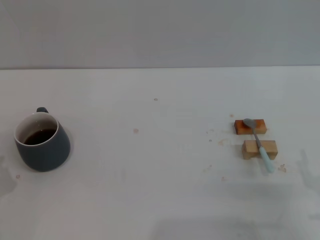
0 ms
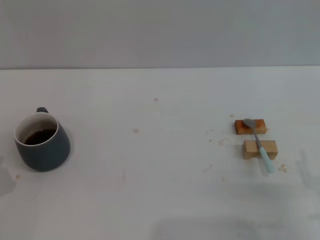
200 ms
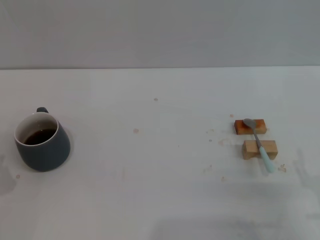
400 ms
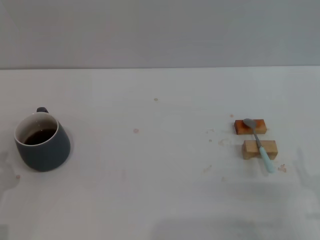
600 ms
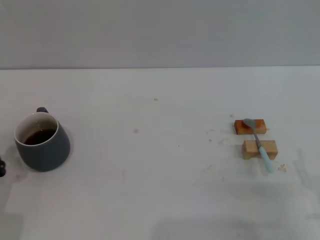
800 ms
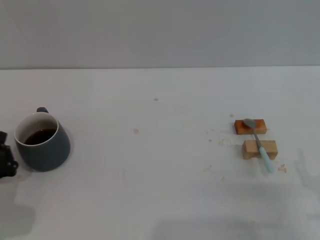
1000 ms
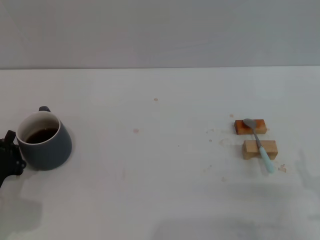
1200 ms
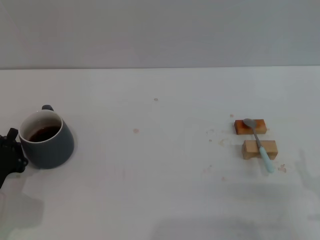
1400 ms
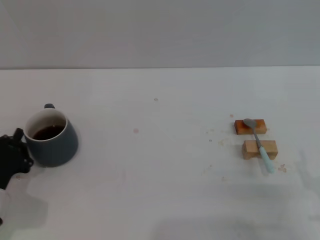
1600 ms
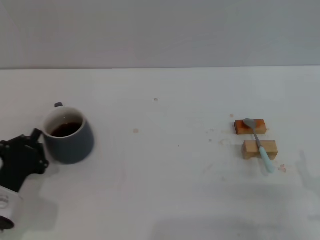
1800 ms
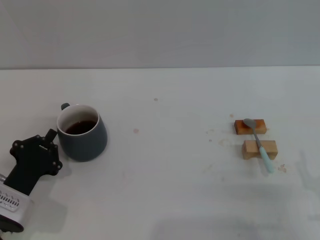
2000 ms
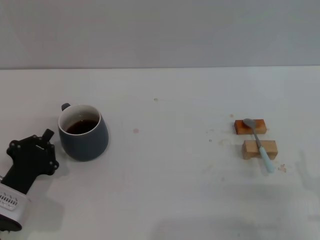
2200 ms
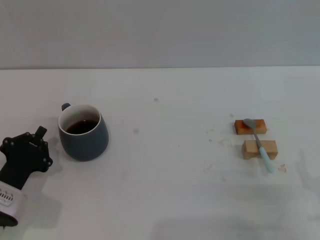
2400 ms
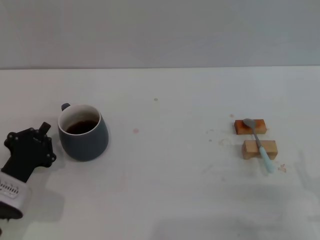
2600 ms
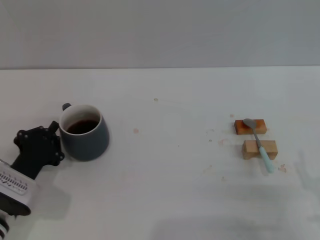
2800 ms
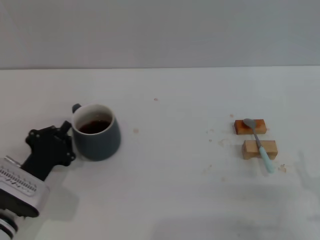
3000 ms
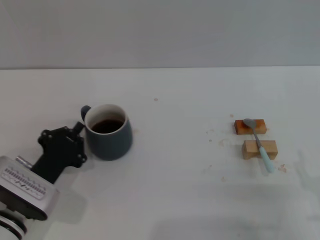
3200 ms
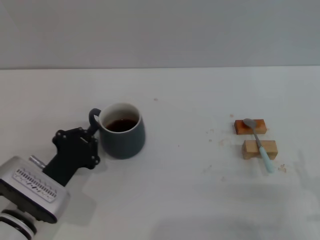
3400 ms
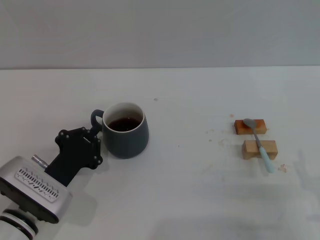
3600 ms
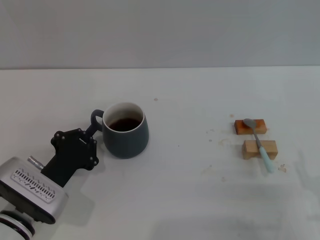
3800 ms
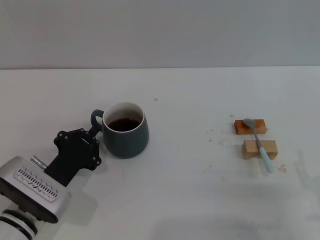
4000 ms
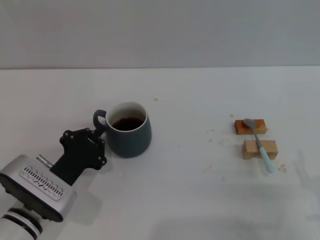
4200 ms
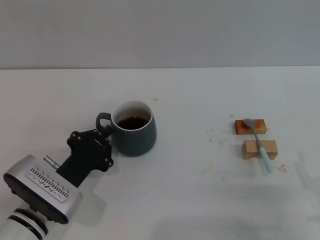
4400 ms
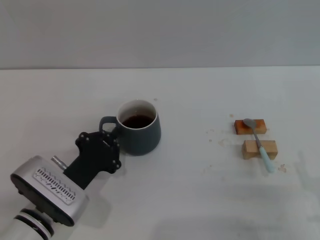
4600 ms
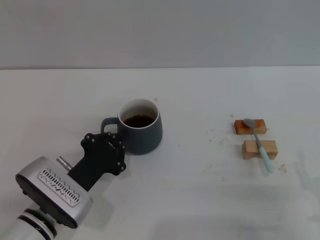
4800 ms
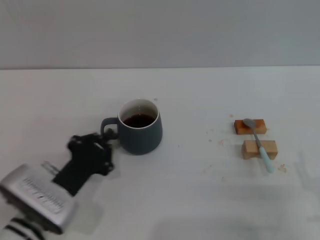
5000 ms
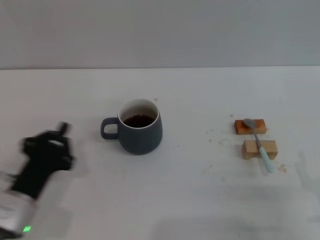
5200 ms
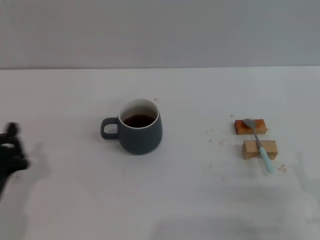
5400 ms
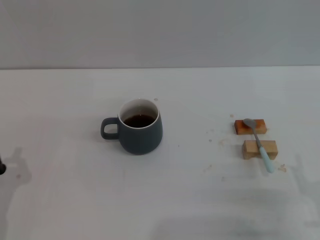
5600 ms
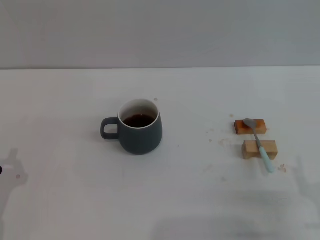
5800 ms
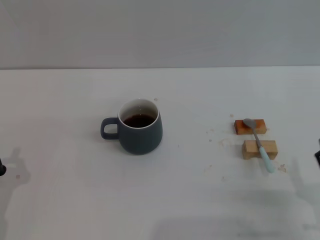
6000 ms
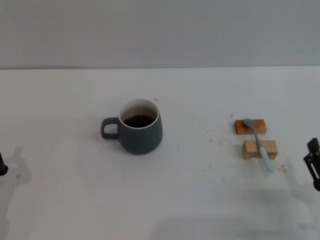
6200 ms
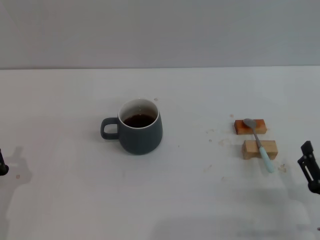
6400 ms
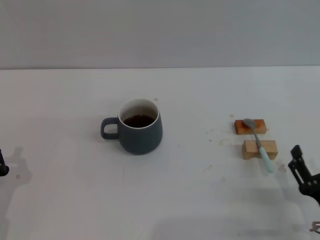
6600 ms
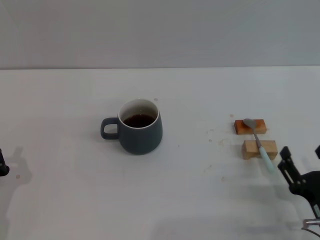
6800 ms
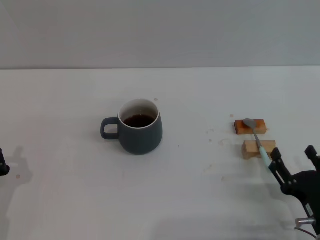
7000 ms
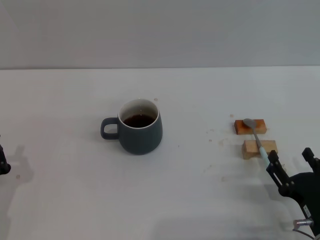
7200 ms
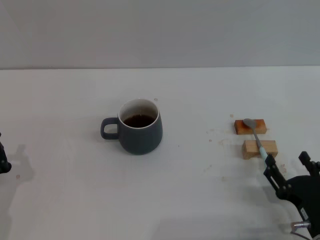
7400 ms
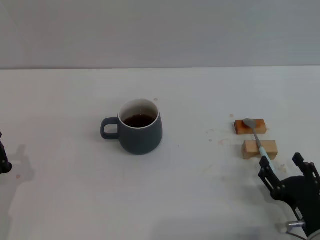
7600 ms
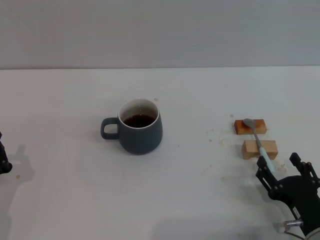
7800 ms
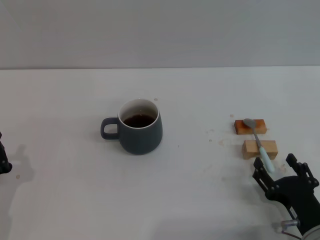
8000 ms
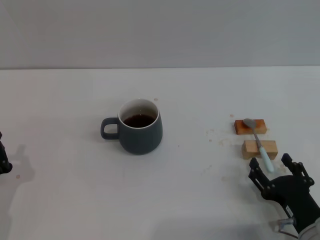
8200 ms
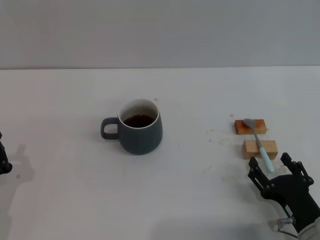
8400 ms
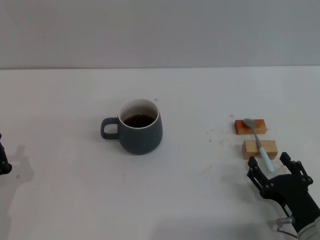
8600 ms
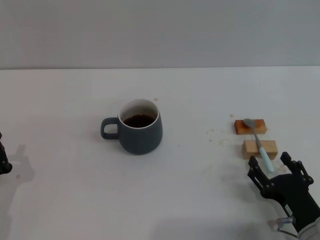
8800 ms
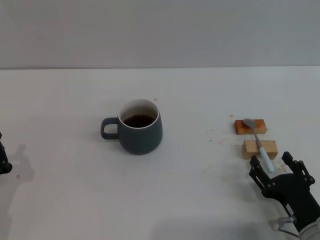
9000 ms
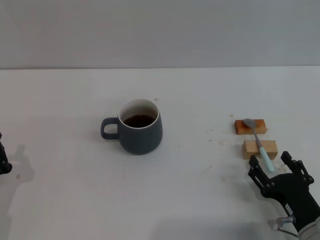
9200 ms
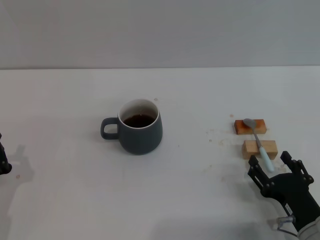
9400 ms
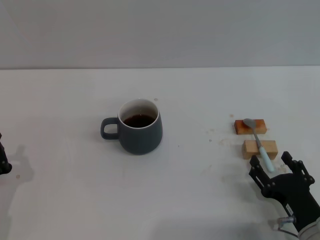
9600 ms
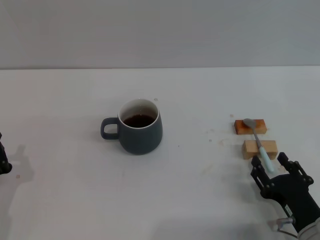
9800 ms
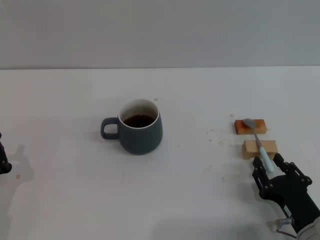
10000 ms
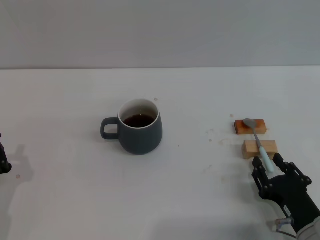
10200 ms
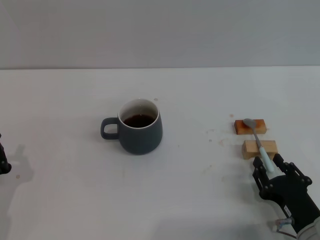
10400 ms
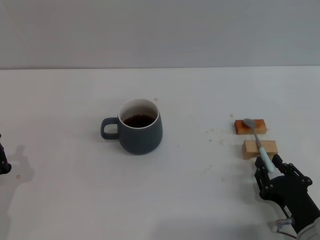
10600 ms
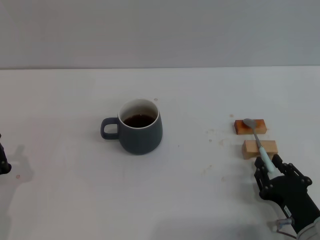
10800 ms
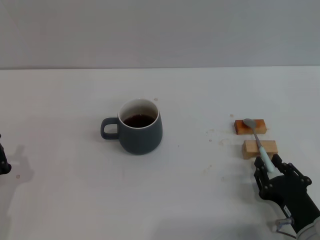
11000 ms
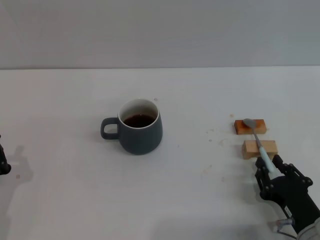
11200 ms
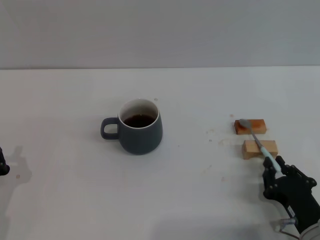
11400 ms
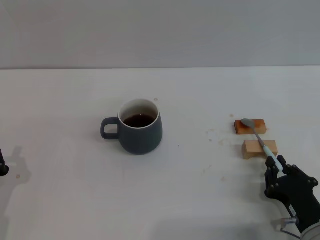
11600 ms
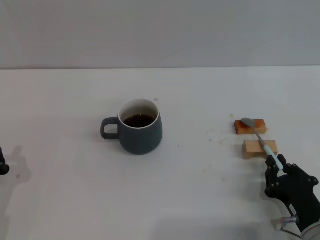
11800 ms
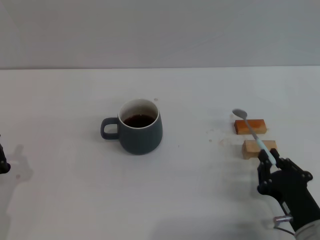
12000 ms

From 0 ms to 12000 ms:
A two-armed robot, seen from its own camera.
Task of the whole recording: Move the grey cup to the center, lift the blue spoon, stir it three times in the cup, and put the spoon into the cup.
Step, from 0 ms to 5600 ms: Move the cup with coffee to the center of view with the left gripper.
From 0 ms to 1600 ms: The left gripper is displaced forward by approximately 5 cm.
From 1600 ms to 3000 ms: The left gripper ends up roughly 5 cm from where it was.
From 3000 ms to 4400 ms: The grippers move only a little.
From 4400 ms to 6000 ms: The left gripper shifts approximately 15 cm to the left and backward.
From 7600 ms to 9000 ms: Neither gripper changes place.
From 9000 ms to 10400 ms: The right gripper closes up.
From 10400 ms to 12000 ms: The right gripper closes up.

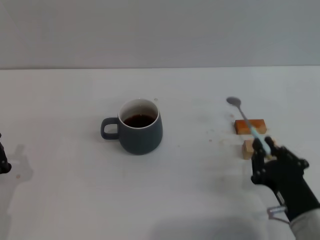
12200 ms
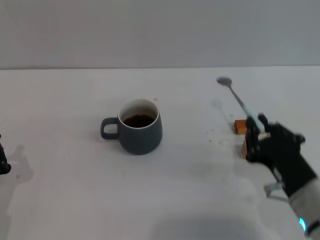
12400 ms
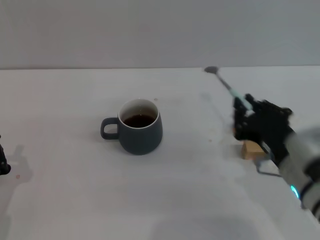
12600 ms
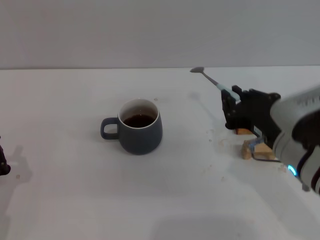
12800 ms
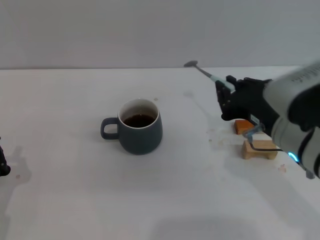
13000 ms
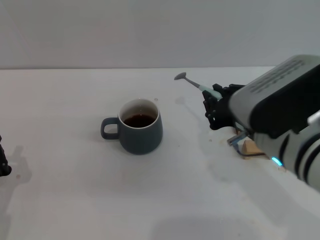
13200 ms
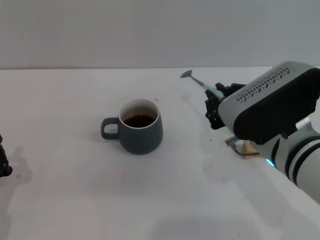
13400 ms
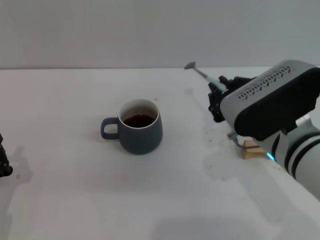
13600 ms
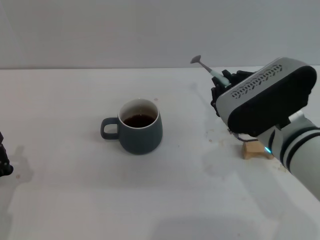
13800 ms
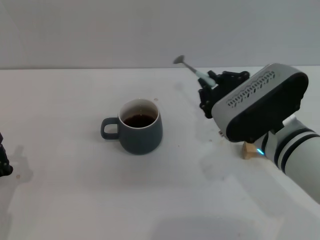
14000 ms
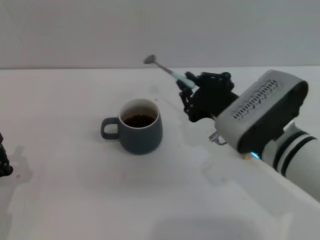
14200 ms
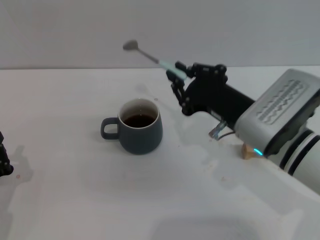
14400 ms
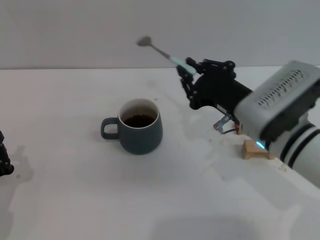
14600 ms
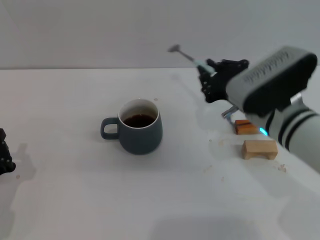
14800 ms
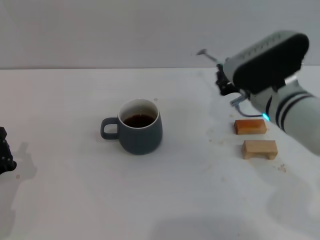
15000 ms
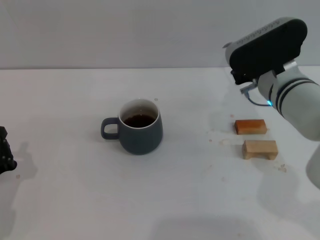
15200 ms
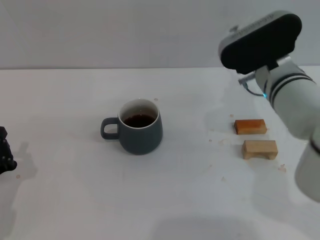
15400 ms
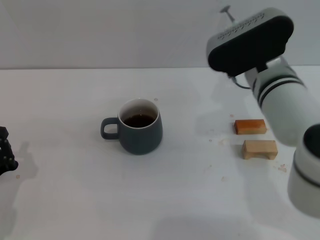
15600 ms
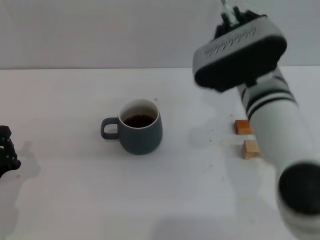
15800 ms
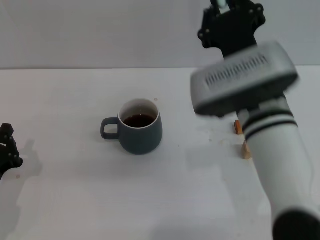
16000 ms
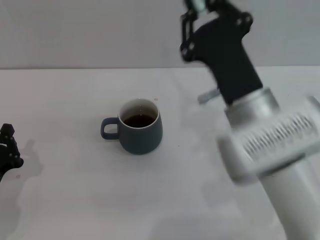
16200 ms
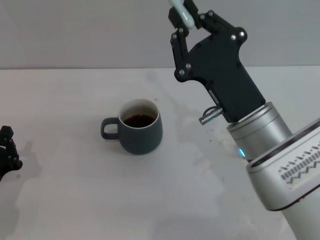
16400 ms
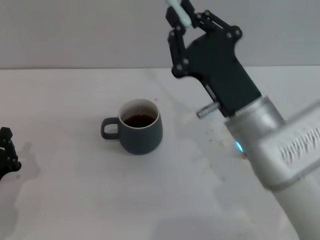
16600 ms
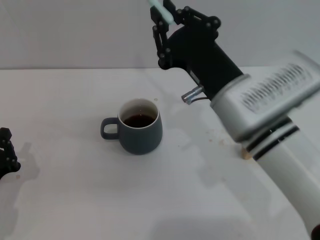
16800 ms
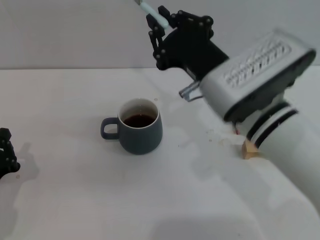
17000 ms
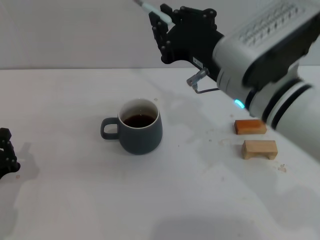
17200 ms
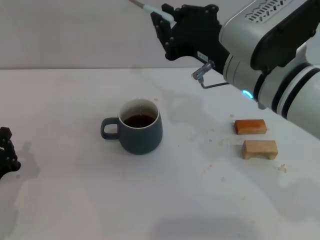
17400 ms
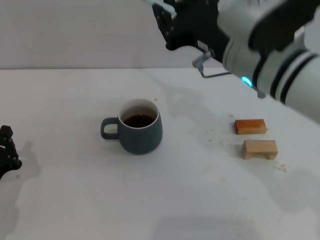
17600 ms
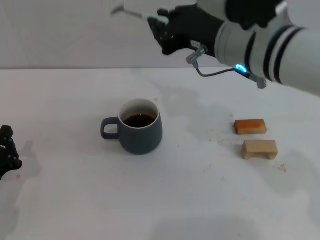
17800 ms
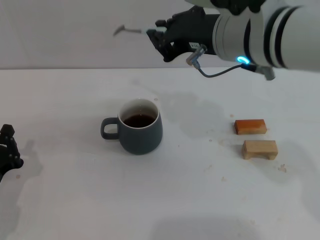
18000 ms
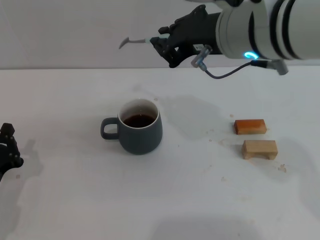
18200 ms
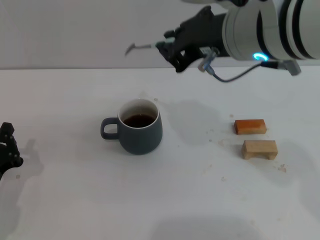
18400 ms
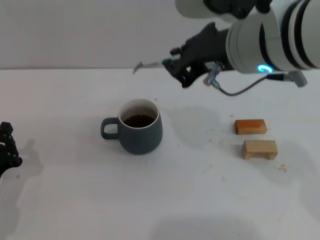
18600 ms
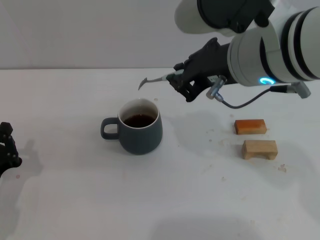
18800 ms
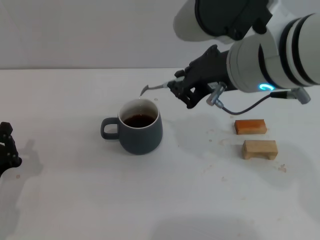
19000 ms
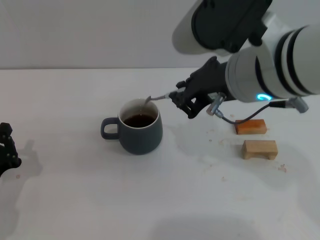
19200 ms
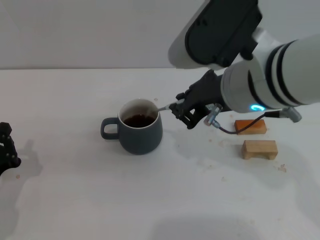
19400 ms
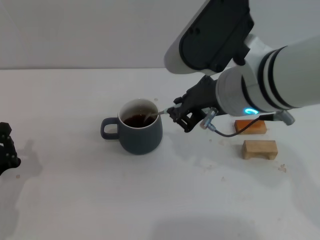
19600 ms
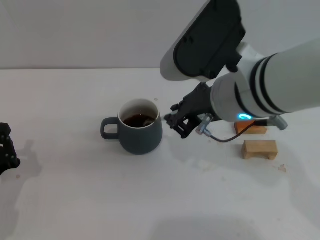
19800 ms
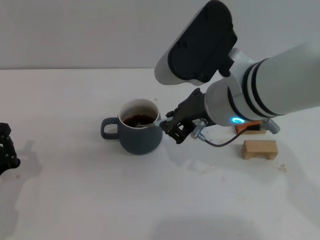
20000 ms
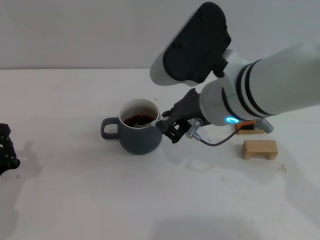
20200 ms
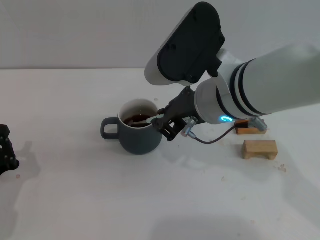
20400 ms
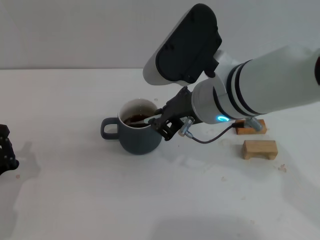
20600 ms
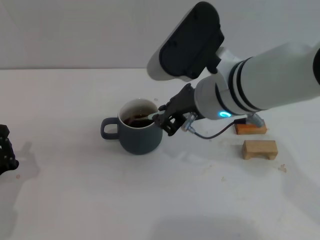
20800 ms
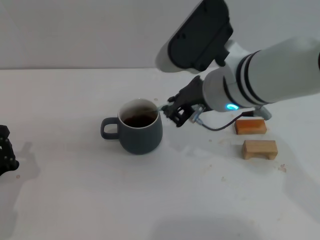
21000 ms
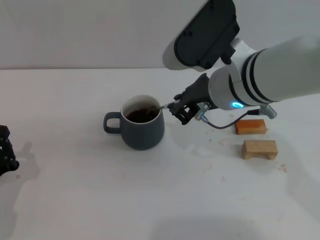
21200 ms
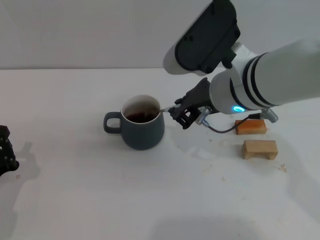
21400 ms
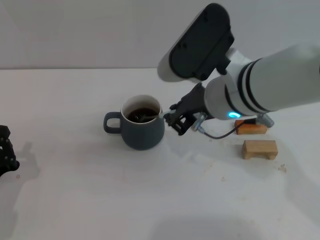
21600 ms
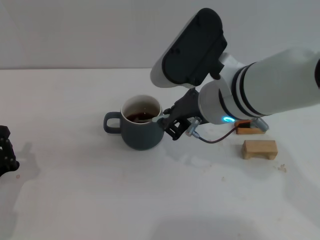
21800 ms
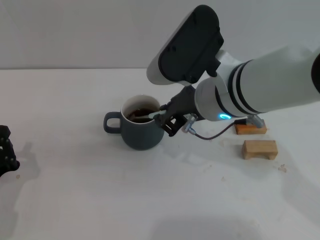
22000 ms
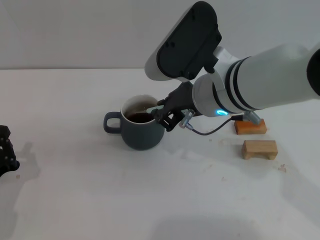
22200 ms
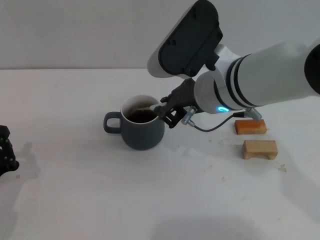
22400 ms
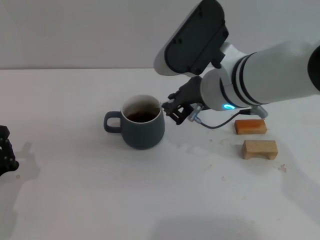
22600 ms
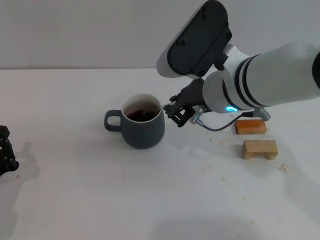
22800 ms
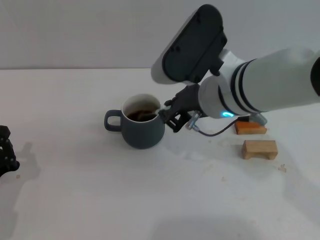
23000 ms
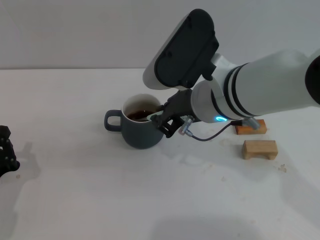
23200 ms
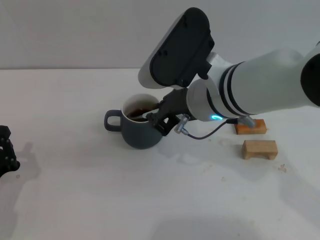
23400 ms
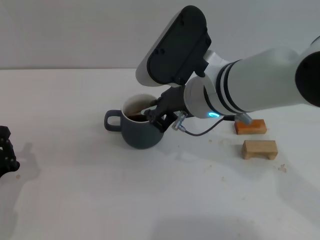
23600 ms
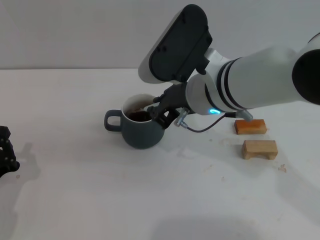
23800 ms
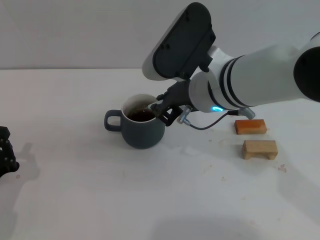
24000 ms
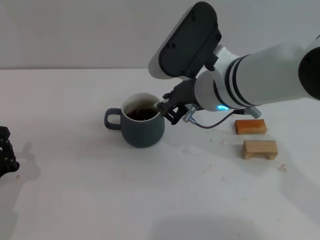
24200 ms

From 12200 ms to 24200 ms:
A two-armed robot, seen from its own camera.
Task of the whole recording: Move the grey cup to the center, lift the blue spoon, stir it three times in the cup, and put the spoon into the cup.
Step, from 12600 ms to 22600 ms: Stir the coffee in the cup with the right gripper.
From 12200 ms to 13800 ms: The right gripper is displaced upward, forward and to the left by about 15 cm.
From 13800 ms to 15200 ms: The right gripper goes about 10 cm forward.
From 15200 ms to 16600 ms: The right gripper goes about 10 cm backward.
From 16600 ms to 18200 ms: The right gripper heads upward, covering about 15 cm.
From 18200 ms to 19800 ms: The right gripper is displaced downward by about 5 cm.
From 19800 ms to 24200 ms: There are only small adjustments of the grippers.
